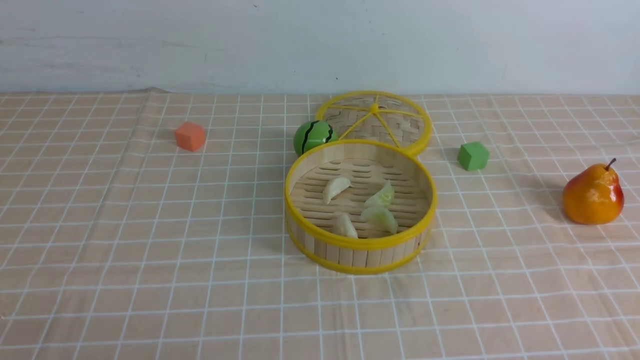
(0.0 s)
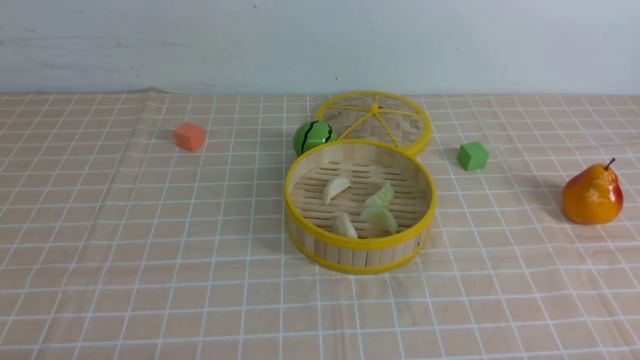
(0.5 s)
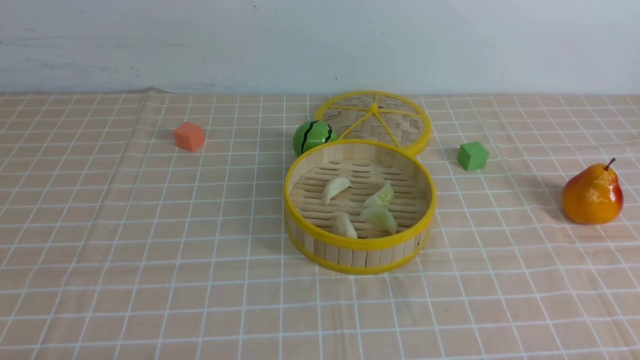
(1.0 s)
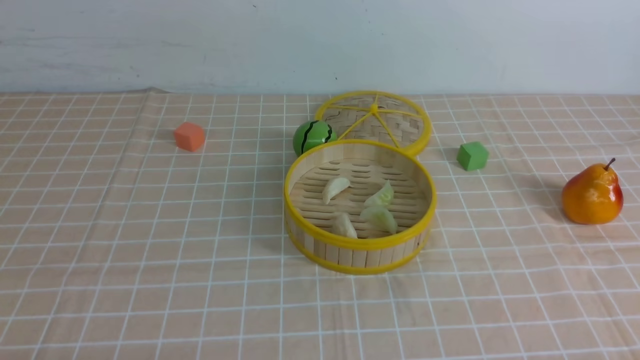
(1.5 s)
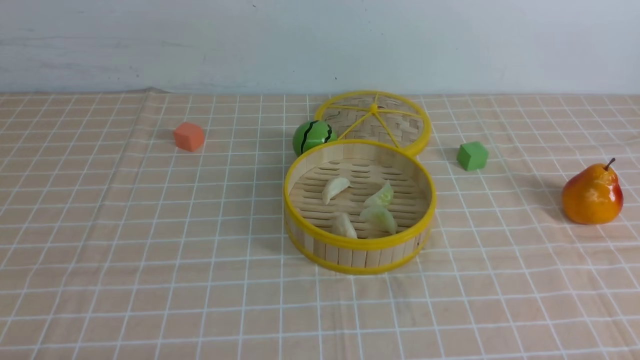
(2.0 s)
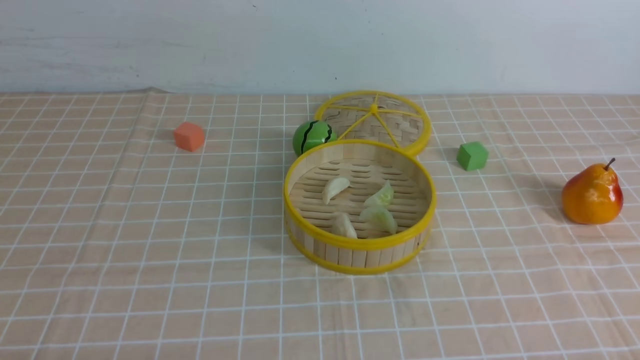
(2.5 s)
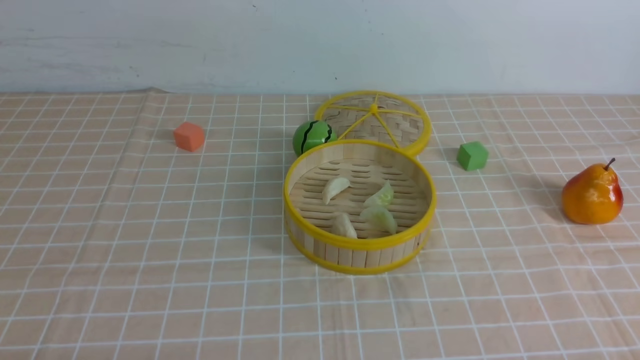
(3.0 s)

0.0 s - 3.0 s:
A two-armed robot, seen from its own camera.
Task of the whole recording: put the dumplings into the steamer on the table with the brown tablecloth.
1.5 s - 3.0 s: Both grippers stay put.
